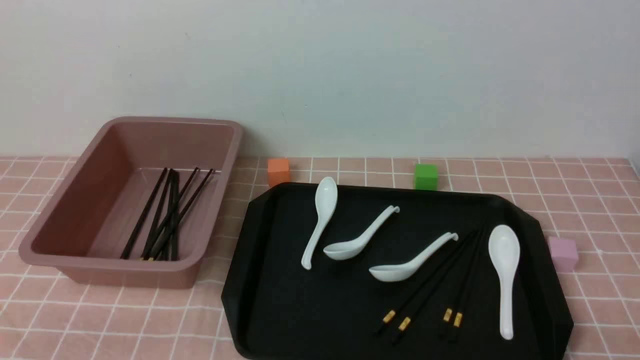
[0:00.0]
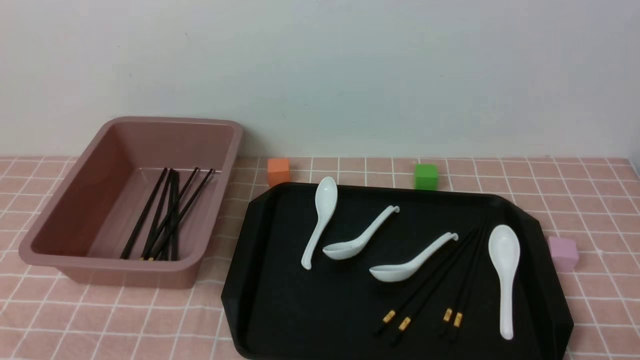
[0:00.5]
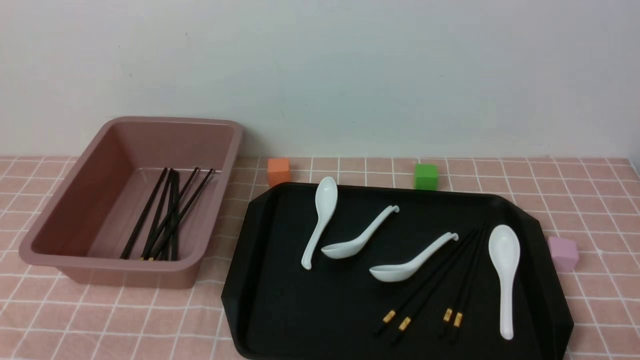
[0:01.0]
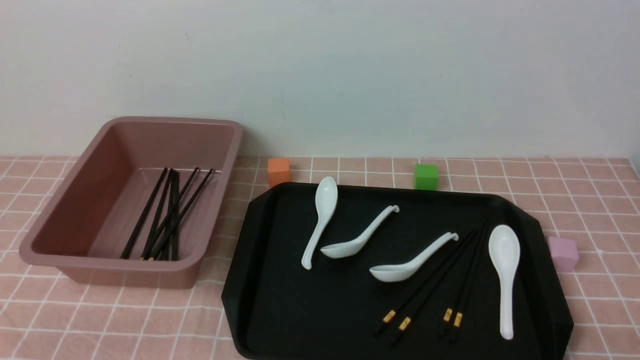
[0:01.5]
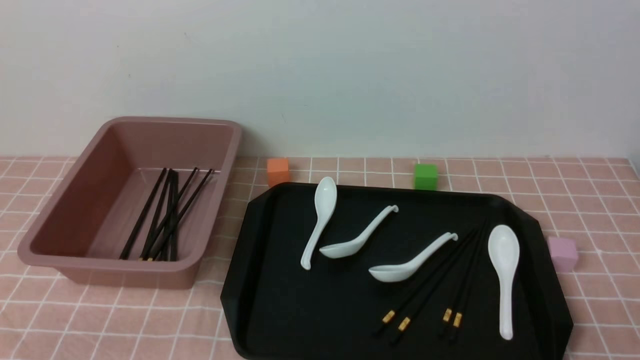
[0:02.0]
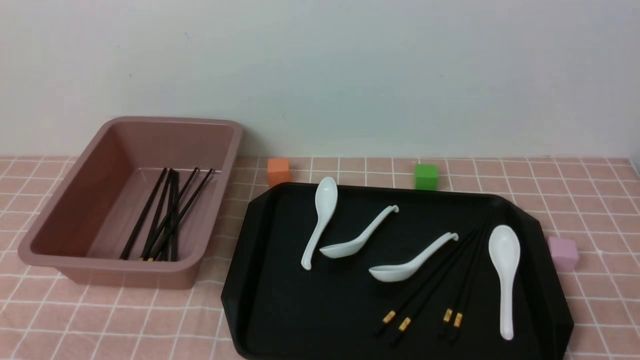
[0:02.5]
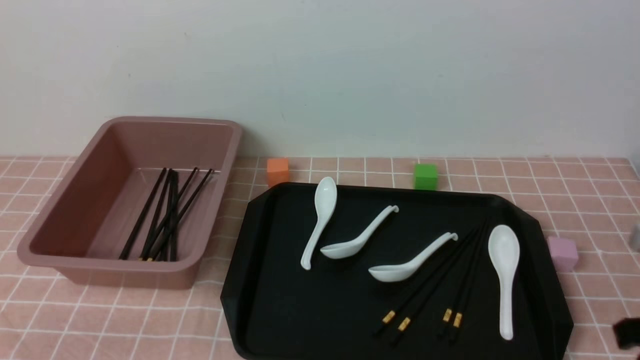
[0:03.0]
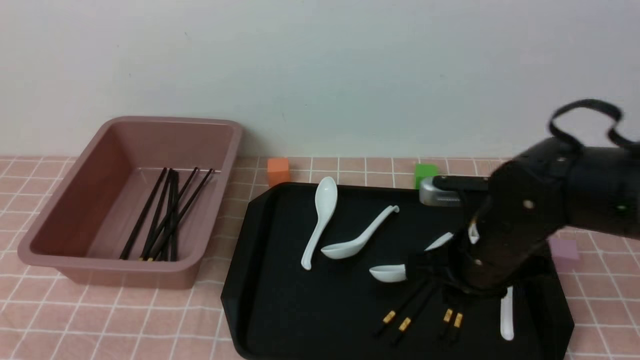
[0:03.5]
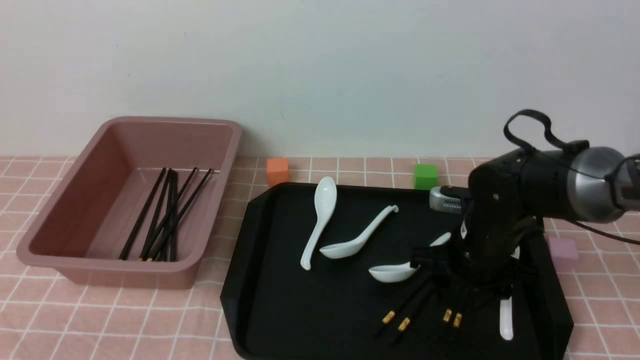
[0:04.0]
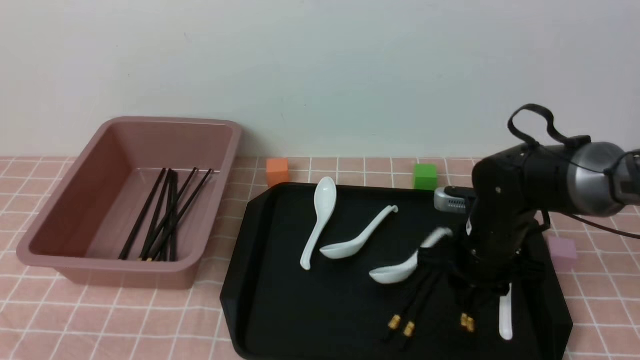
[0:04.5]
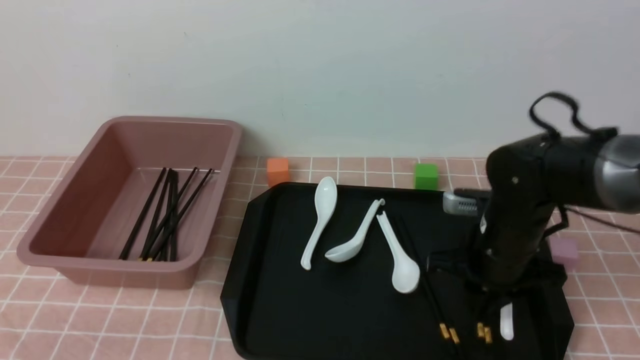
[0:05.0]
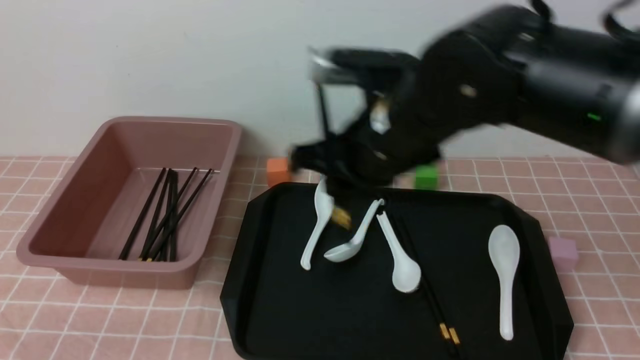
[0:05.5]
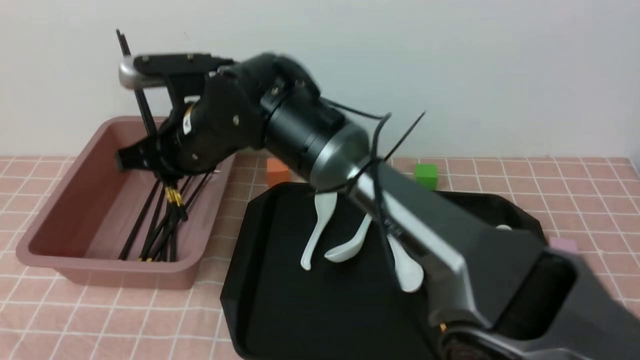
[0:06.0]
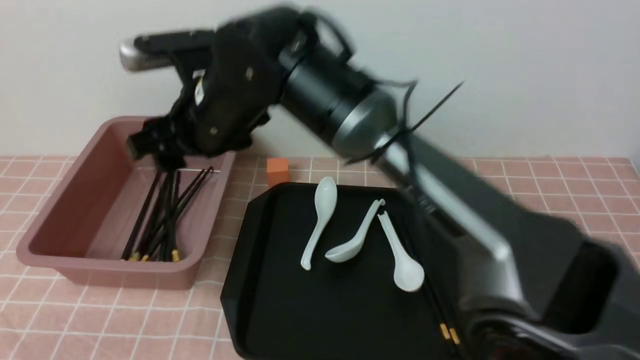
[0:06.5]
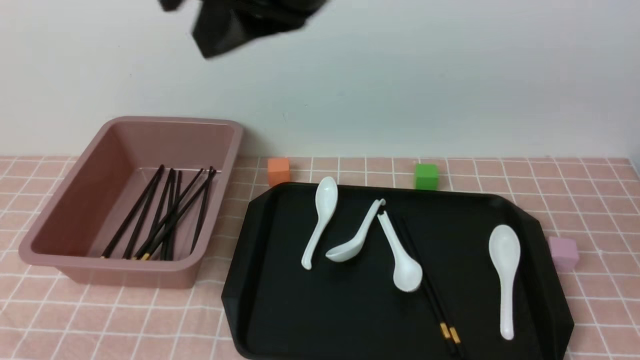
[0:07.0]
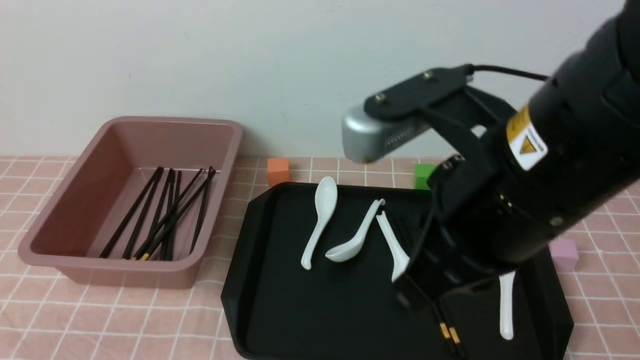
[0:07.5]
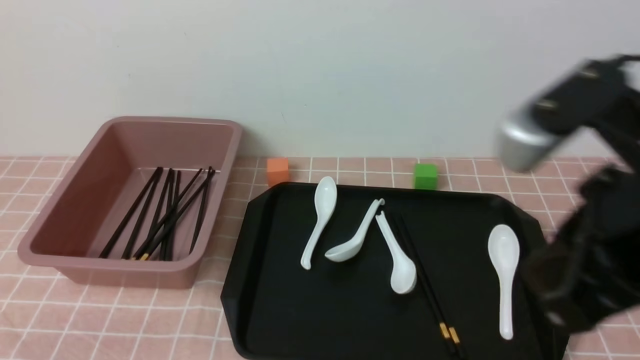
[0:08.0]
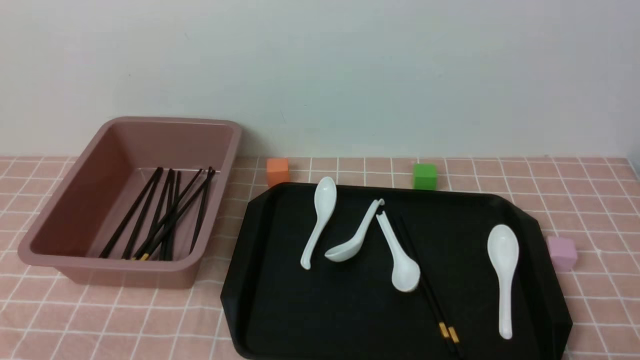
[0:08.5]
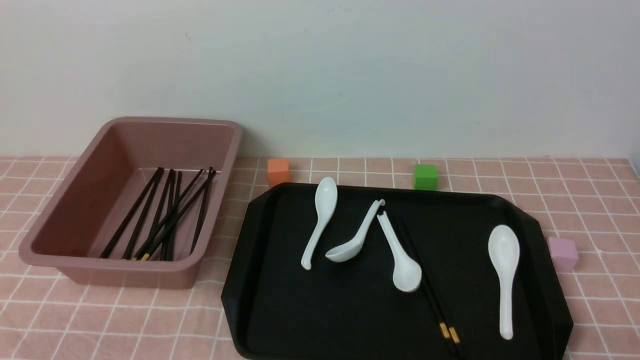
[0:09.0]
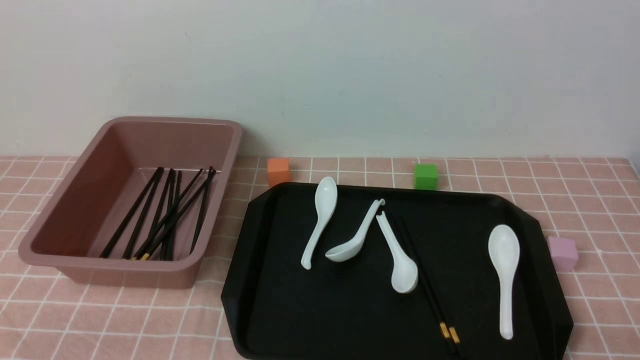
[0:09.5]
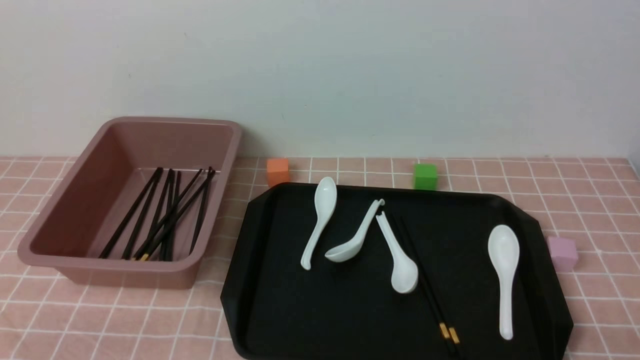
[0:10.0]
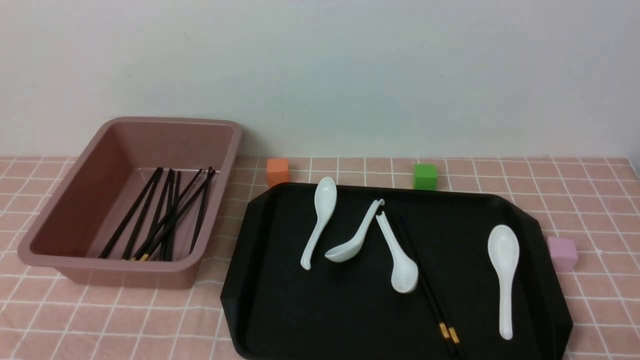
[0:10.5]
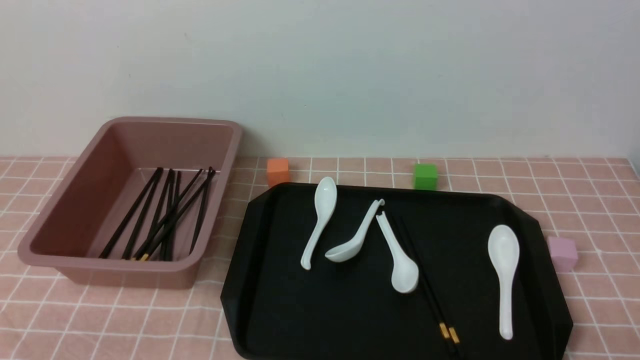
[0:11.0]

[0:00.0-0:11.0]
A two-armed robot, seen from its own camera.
Step, 0:00.0 to 0:05.0: use the right arm to grab a pair of chopsticks.
Step, 0:05.5 to 0:06.5: use the right arm to put the chopsticks into the lunch box.
0:02.0 to 0:03.5: The right gripper heads forward and to the left, covering roughly 30 cm, and closes and opens again.
0:03.5 to 0:05.5: The right gripper shifts about 20 cm to the left and upward, and opens and closes again, while the left gripper opens up.
0:05.5 to 0:07.5: The right gripper moves backward and upward, roughly 15 cm, moves about 15 cm to the left and comes back, and closes its fingers. The left gripper opens up.
0:07.5 to 0:09.0: The right gripper moves downward, to the right and backward, about 30 cm.
0:09.0 to 0:11.0: Both grippers stay about where they are.
